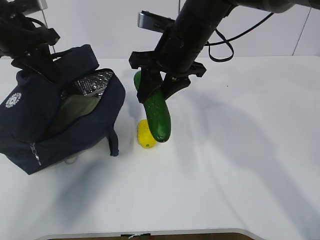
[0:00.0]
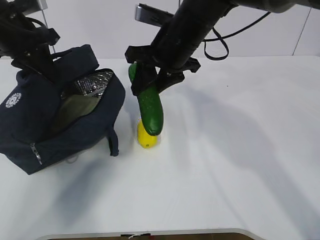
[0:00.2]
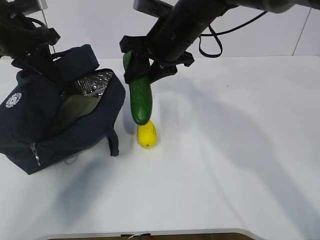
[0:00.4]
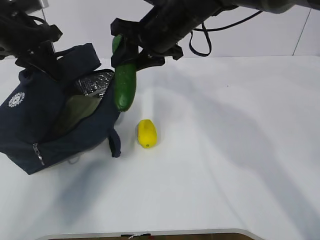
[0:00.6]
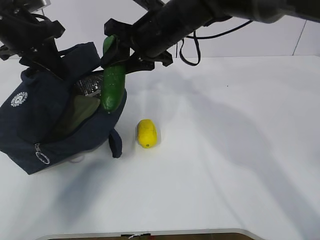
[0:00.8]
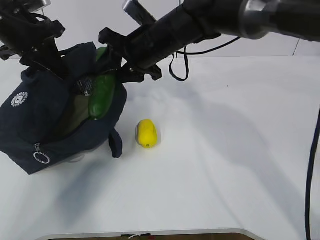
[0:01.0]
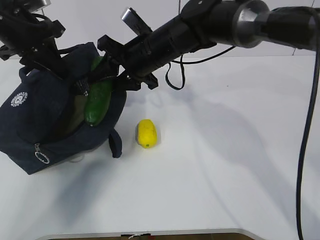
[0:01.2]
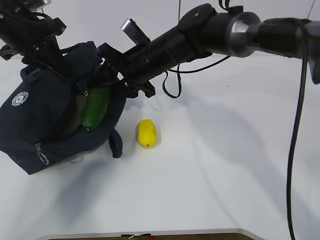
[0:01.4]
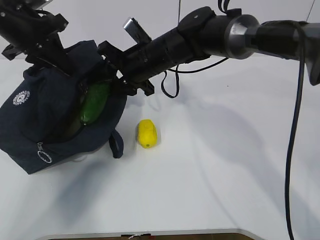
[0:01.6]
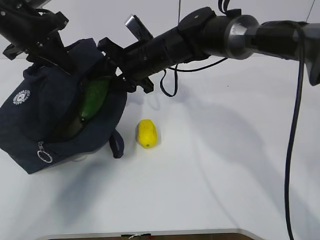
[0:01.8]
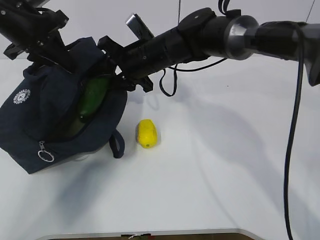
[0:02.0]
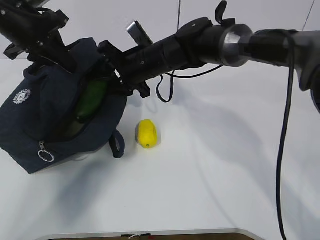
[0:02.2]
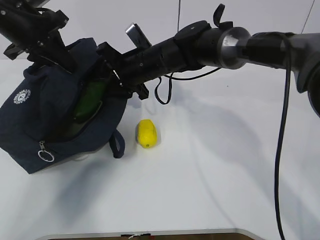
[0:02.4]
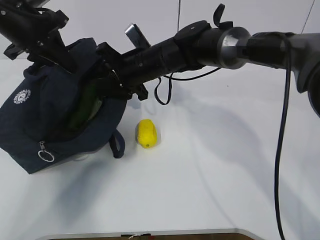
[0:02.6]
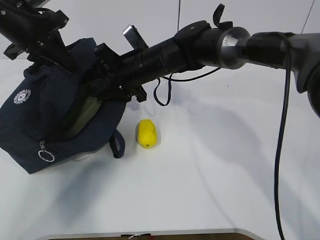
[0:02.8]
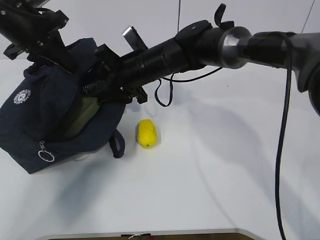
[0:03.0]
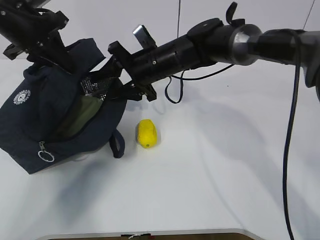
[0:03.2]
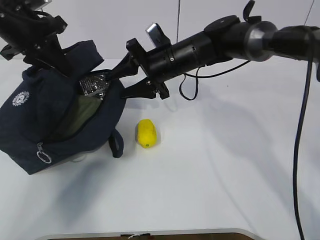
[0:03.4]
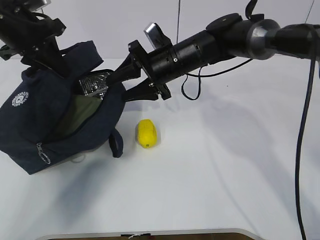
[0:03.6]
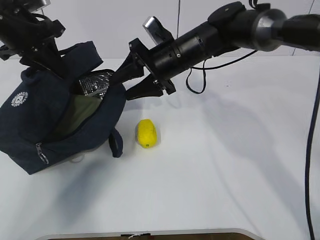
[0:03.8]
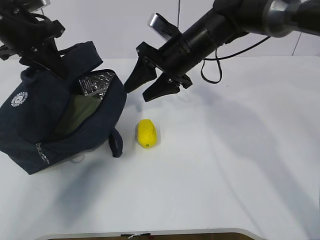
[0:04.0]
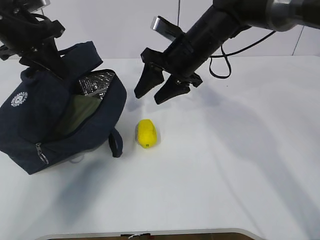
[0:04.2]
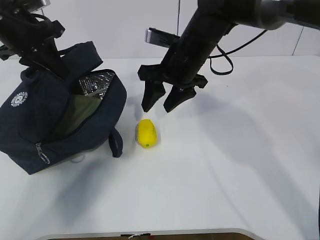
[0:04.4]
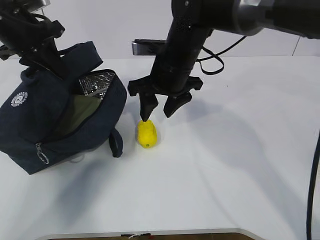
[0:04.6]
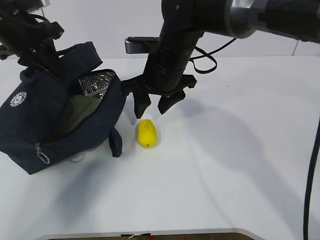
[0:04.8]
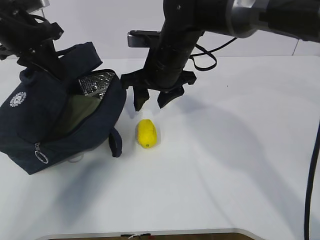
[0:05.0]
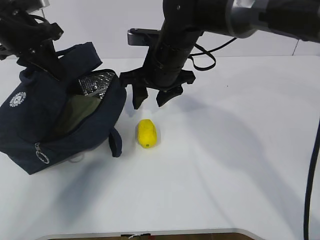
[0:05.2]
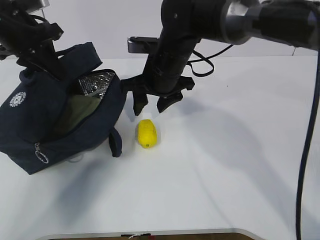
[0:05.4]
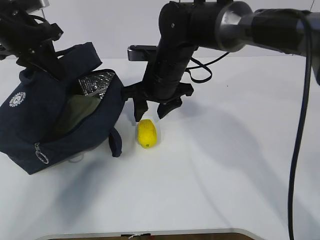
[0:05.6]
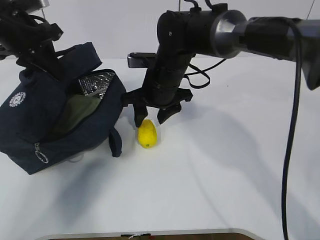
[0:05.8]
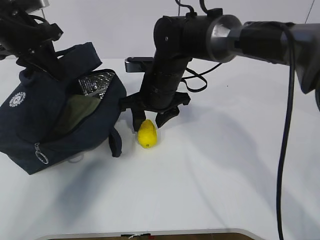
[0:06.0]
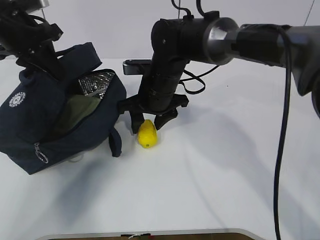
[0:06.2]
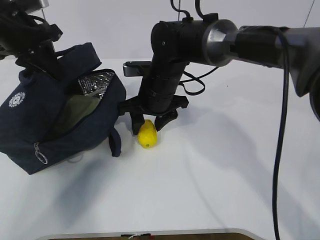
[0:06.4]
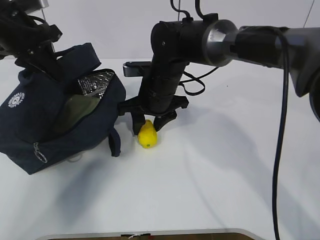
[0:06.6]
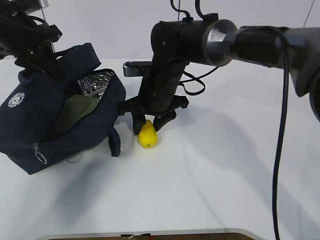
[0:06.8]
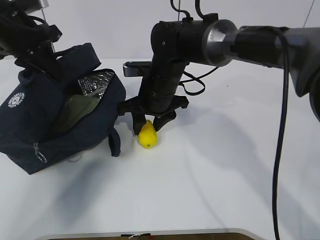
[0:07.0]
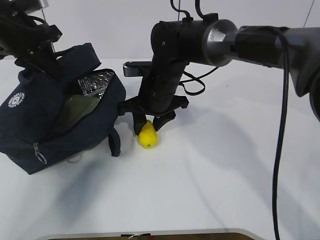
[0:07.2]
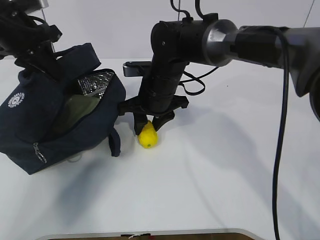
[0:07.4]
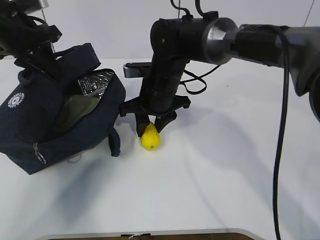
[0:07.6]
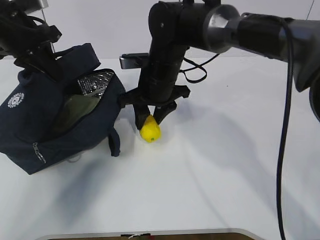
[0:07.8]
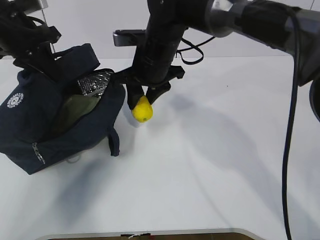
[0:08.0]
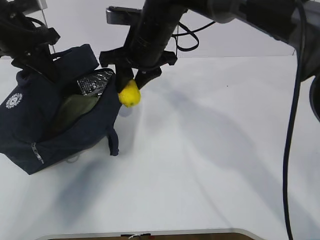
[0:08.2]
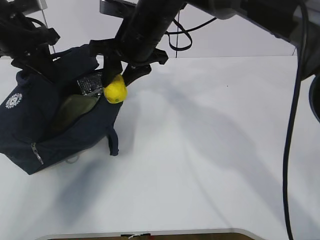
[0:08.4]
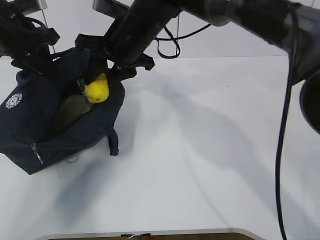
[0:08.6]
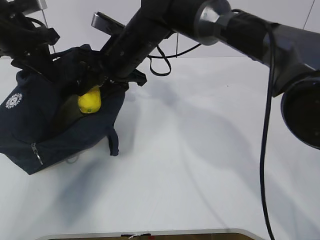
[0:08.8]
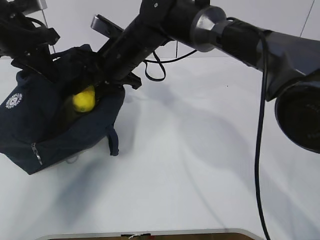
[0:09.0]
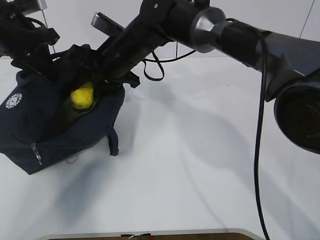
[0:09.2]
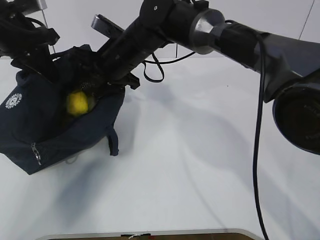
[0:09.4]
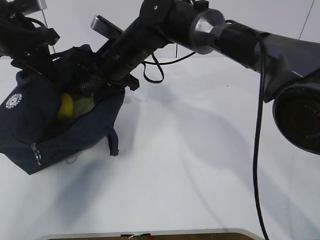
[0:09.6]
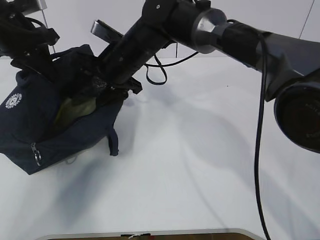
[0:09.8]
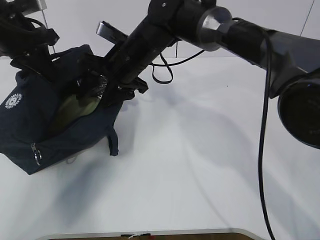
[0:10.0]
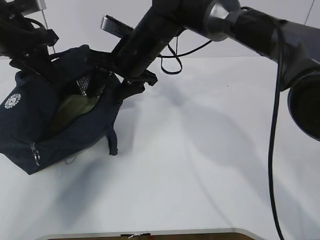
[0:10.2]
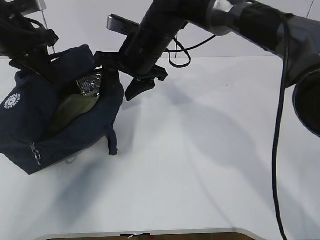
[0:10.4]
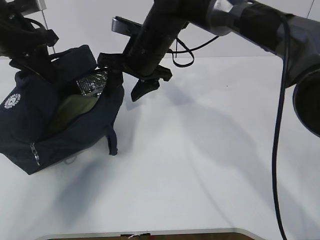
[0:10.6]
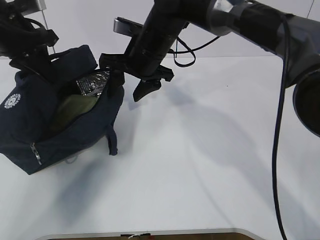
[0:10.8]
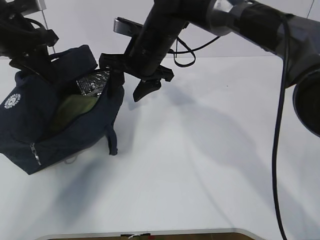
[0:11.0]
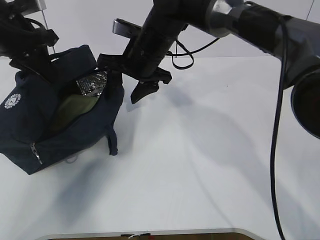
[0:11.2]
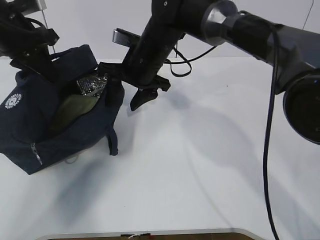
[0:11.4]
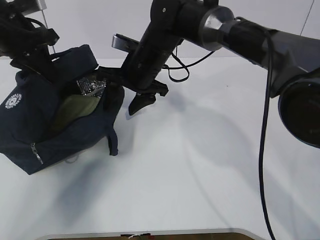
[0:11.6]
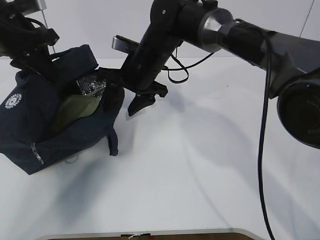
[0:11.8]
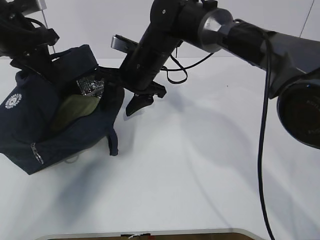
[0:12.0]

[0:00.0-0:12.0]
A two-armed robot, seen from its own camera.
Step, 0:00.0 to 0:02.0: Grab the lemon with your right hand.
Step, 0:04.2 to 0:06.6: Grab the lunch bag with your right hand.
Step, 0:07.0 to 0:09.2: Move the lunch bag to the right.
0:00.0 to 0:01.6: The right gripper goes approximately 5 cm downward and to the left.
0:01.6 to 0:03.0: The grippers make only small movements.
0:03.0 to 0:04.4: The right gripper moves to the right, approximately 5 cm.
0:04.4 to 0:06.0: The right gripper moves downward, some 5 cm.
0:06.0 to 0:07.6: Neither gripper changes place.
0:07.6 to 0:09.0: The right gripper is displaced upward and to the left by some 10 cm.
0:09.0 to 0:12.0: There are only small adjustments of the grippers.

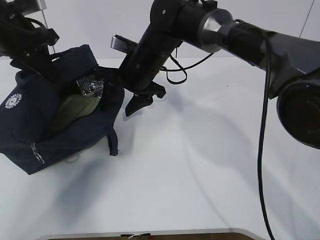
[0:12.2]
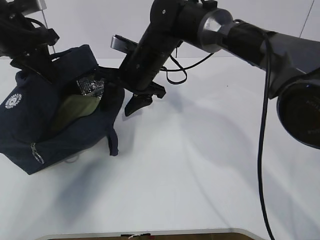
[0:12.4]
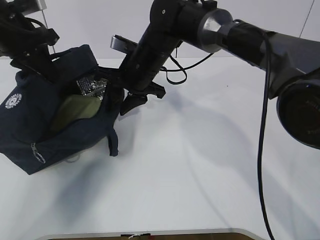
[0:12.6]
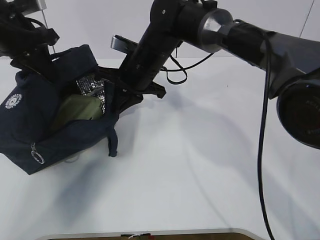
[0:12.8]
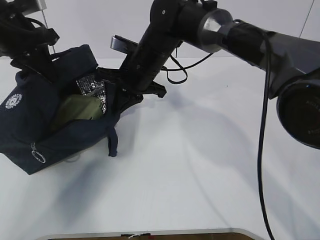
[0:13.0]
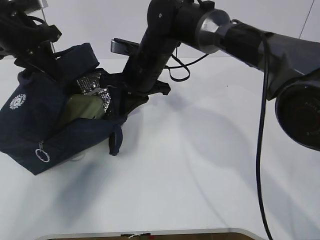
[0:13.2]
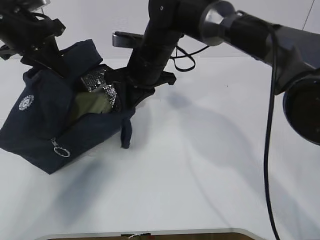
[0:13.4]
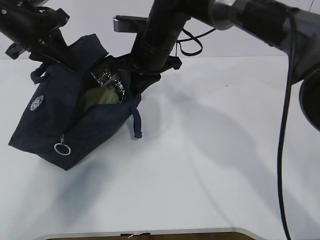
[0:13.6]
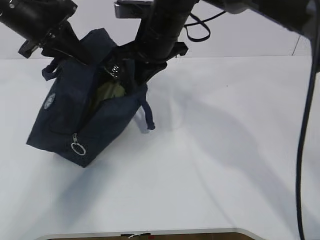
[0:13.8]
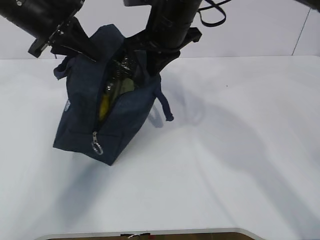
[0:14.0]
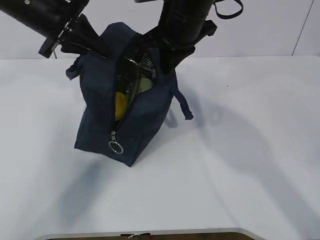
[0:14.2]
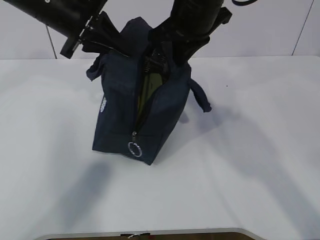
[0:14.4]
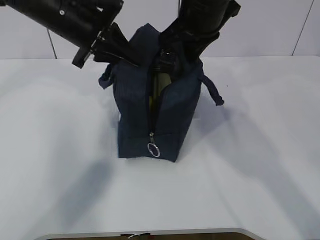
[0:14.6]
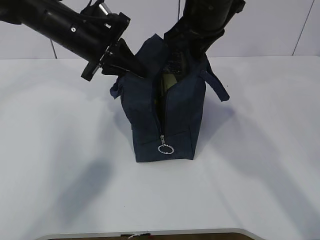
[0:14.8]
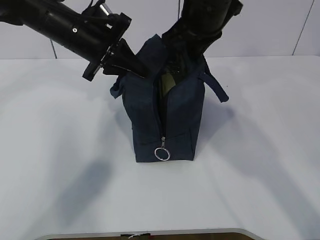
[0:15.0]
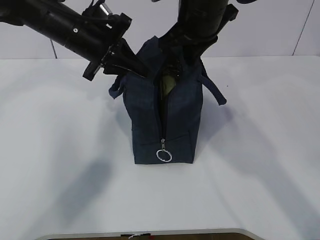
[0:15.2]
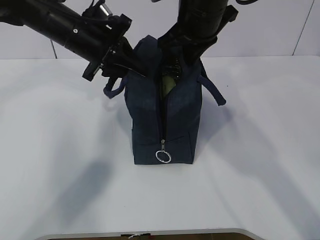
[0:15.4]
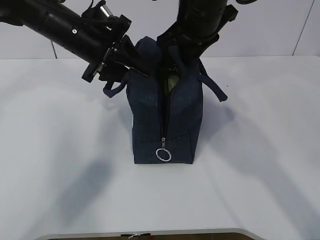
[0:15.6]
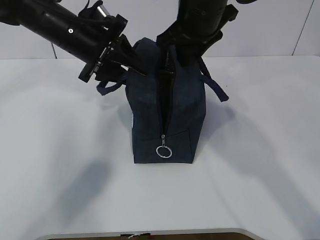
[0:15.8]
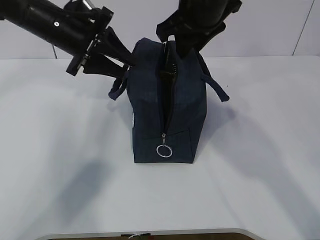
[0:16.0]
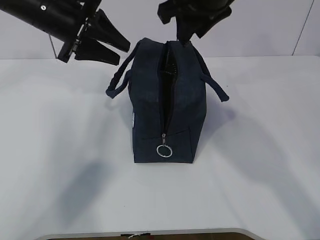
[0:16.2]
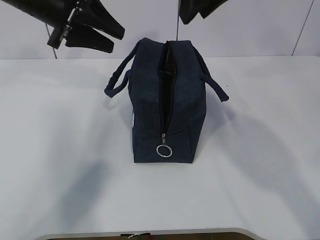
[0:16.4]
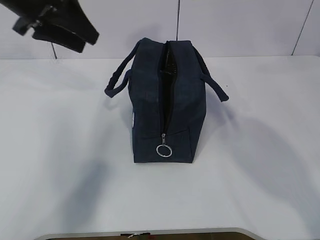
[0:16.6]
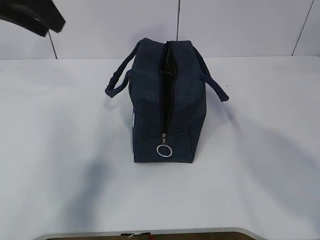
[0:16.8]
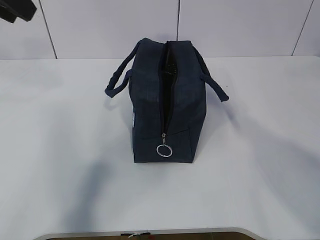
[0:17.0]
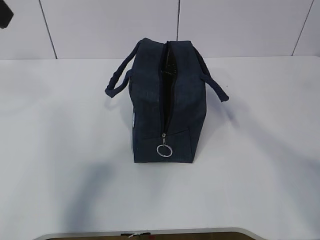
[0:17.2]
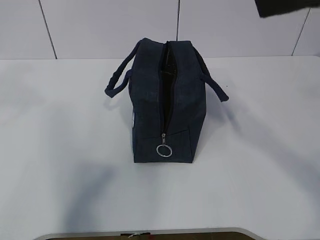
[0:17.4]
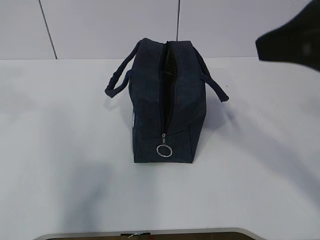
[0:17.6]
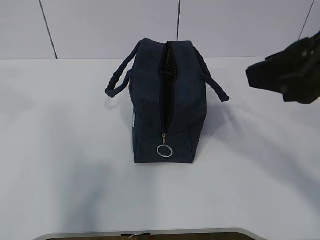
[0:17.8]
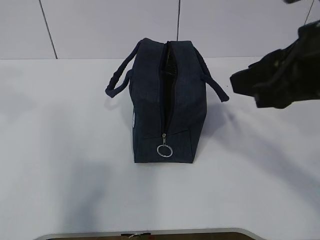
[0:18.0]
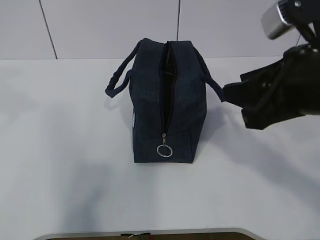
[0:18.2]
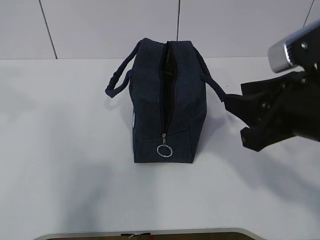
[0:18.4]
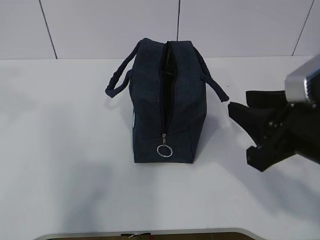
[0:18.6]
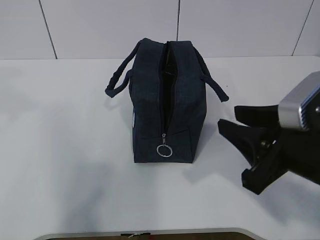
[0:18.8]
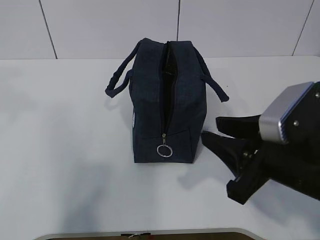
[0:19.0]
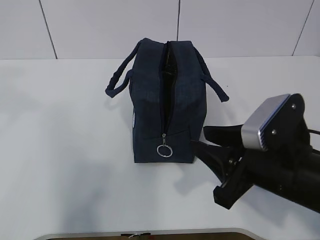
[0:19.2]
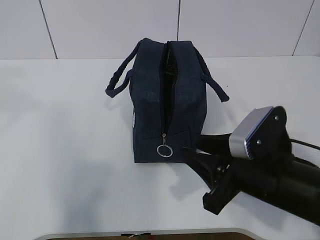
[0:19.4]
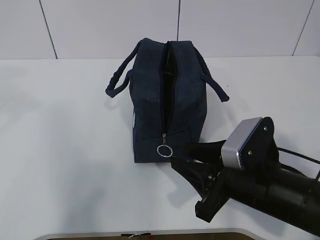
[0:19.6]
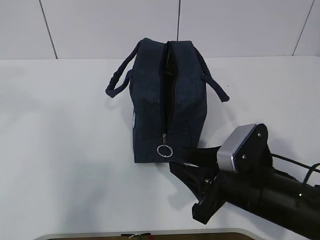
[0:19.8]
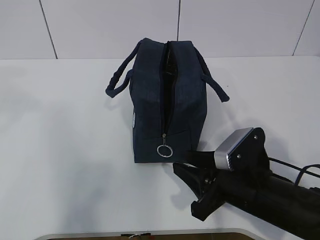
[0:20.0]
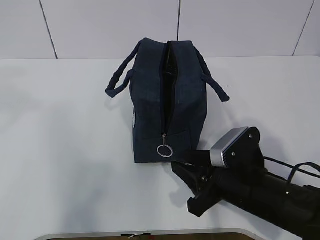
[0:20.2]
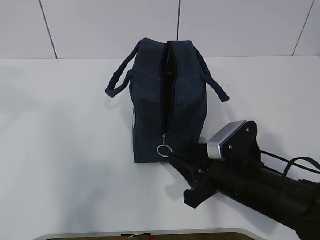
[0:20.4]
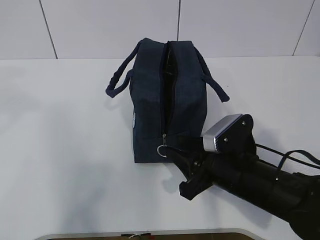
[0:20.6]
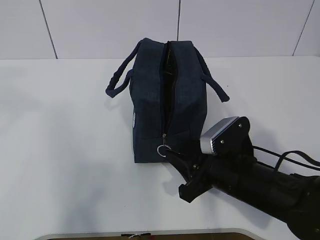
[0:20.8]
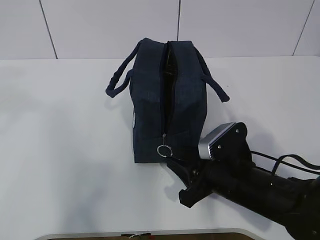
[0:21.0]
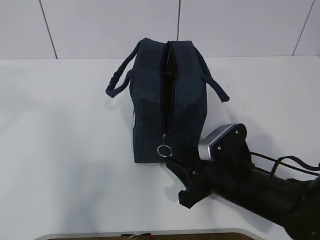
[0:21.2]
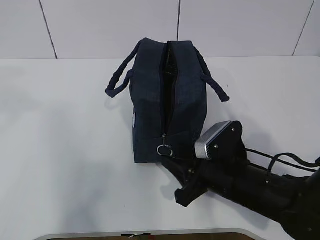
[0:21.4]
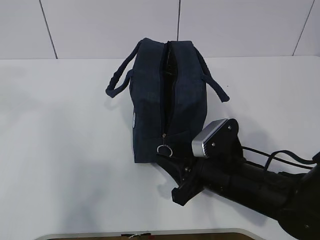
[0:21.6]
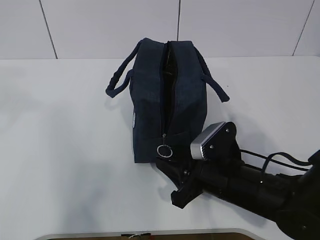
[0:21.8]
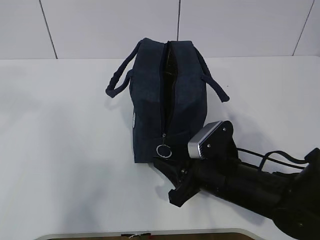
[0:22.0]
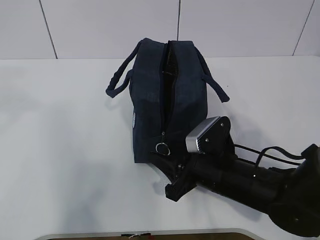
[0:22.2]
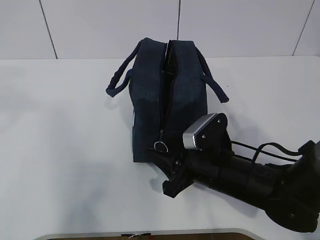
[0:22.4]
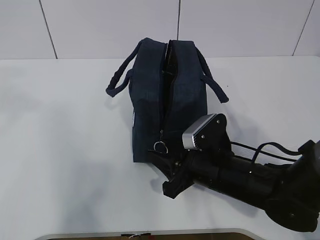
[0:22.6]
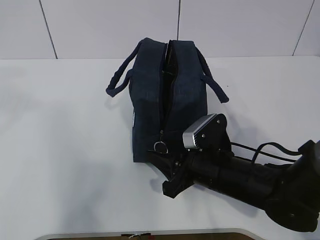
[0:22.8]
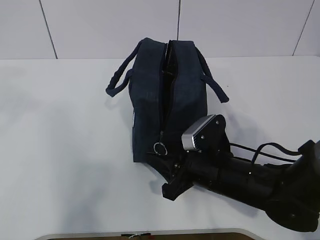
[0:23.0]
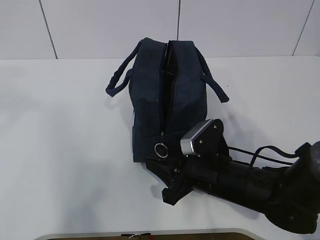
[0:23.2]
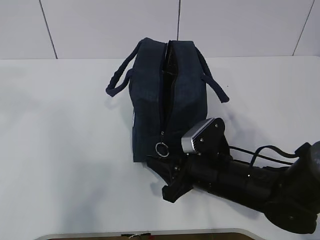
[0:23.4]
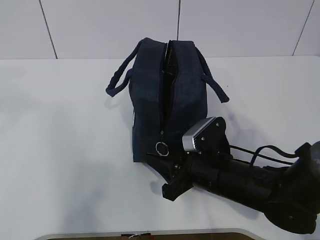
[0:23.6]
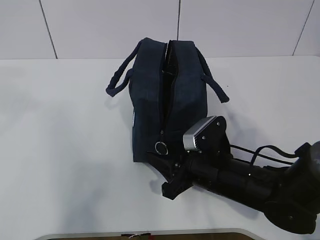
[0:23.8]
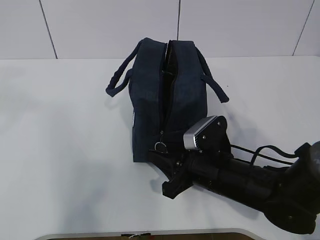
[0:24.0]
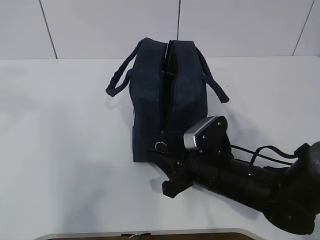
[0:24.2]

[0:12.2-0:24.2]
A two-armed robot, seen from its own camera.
0:12.2 to 0:13.8: The right gripper heads upward, covering approximately 5 cm, and closes its fingers.
0:13.8 to 0:15.2: Both grippers move to the right, about 5 cm.
0:15.2 to 0:16.6: The right gripper heads upward and backward, covering some 15 cm, and opens up. Meanwhile the left gripper shifts approximately 10 cm upward and to the left, and opens.
0:16.6 to 0:18.2: The right gripper shifts roughly 20 cm downward, backward and to the right. Meanwhile the left gripper goes some 20 cm backward and upward.
0:18.2 to 0:19.8: The right gripper travels downward by about 20 cm.
0:19.8 to 0:21.2: There are only small adjustments of the grippers.
0:21.2 to 0:22.6: The grippers move only a little.
0:22.6 to 0:24.2: The two grippers keep their place.
